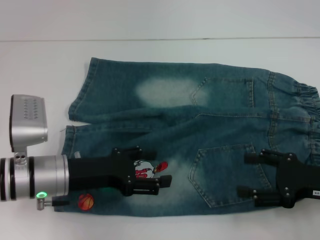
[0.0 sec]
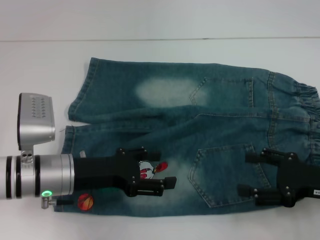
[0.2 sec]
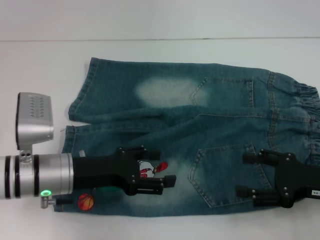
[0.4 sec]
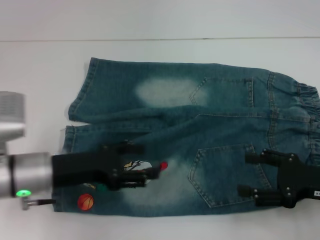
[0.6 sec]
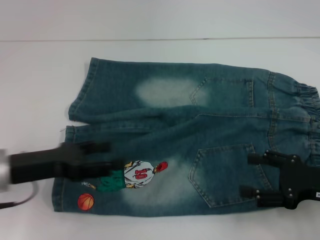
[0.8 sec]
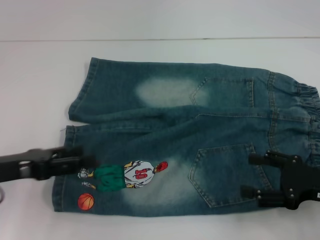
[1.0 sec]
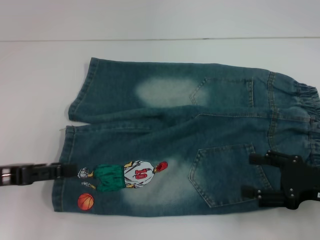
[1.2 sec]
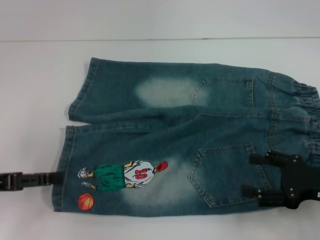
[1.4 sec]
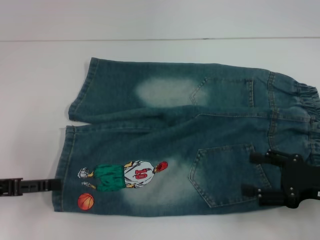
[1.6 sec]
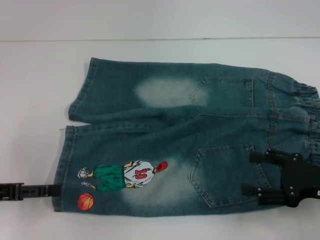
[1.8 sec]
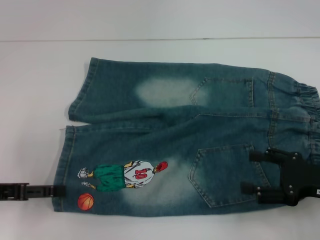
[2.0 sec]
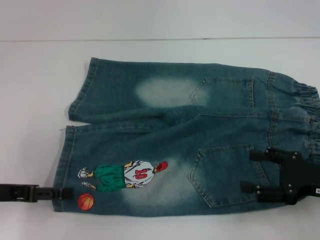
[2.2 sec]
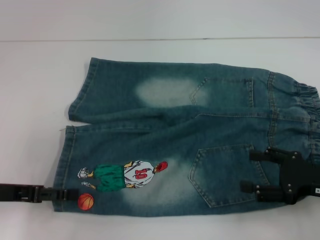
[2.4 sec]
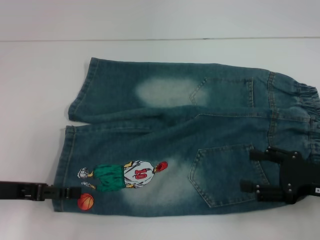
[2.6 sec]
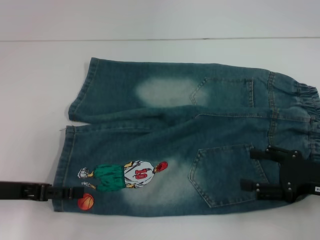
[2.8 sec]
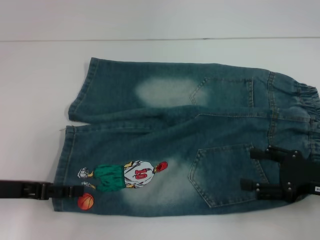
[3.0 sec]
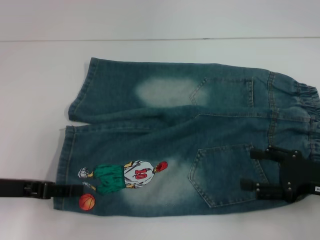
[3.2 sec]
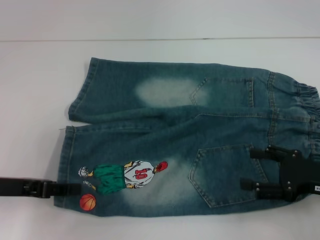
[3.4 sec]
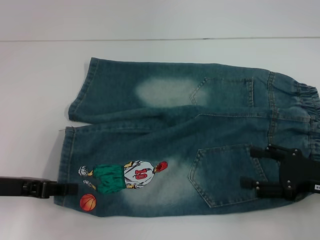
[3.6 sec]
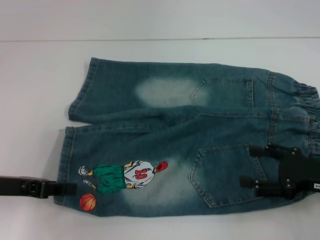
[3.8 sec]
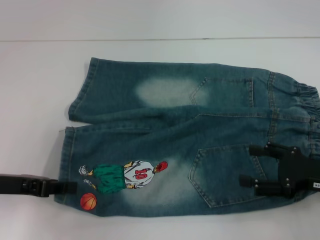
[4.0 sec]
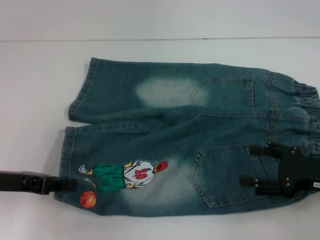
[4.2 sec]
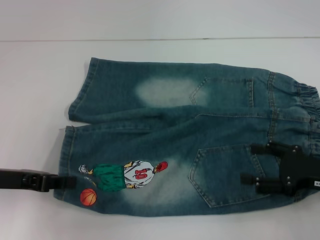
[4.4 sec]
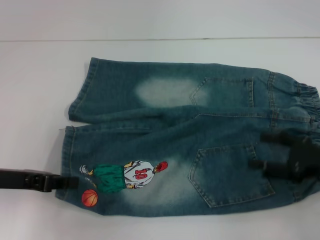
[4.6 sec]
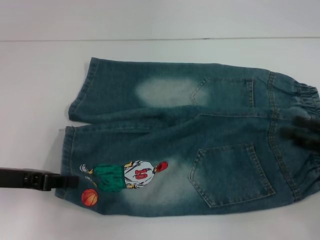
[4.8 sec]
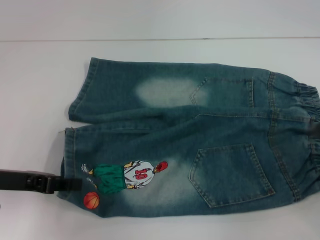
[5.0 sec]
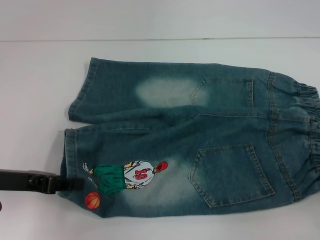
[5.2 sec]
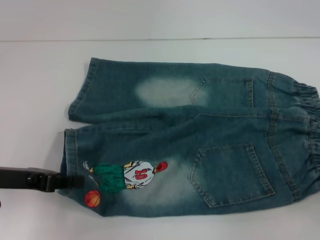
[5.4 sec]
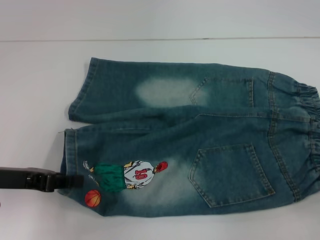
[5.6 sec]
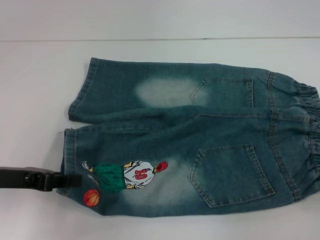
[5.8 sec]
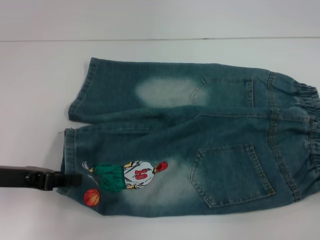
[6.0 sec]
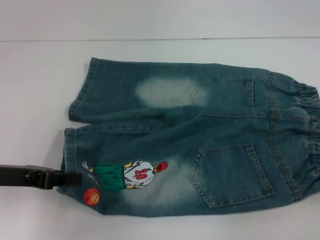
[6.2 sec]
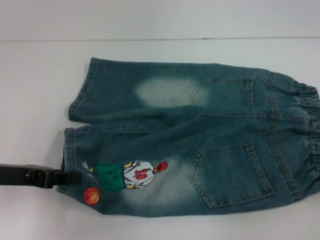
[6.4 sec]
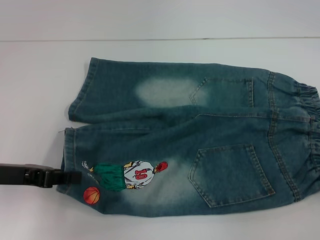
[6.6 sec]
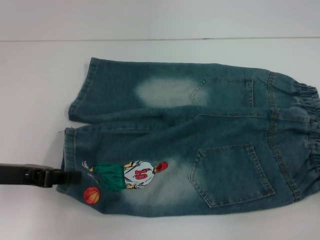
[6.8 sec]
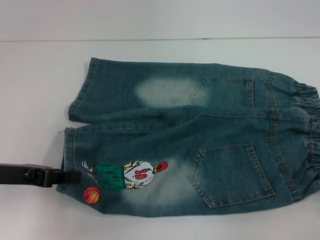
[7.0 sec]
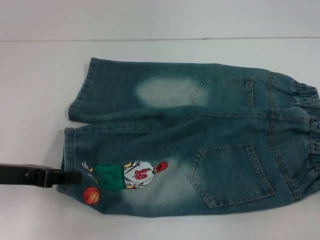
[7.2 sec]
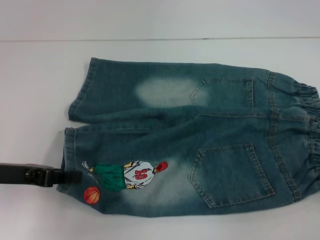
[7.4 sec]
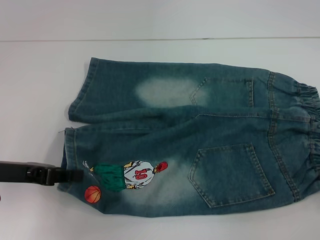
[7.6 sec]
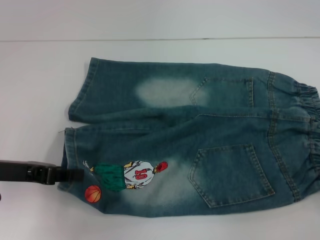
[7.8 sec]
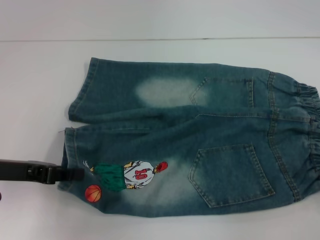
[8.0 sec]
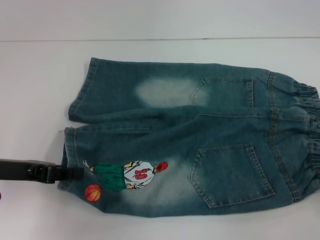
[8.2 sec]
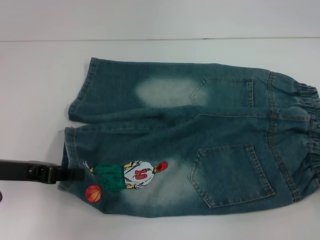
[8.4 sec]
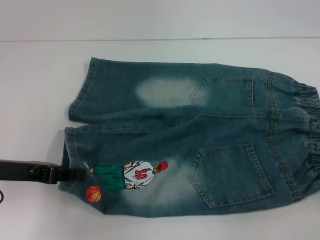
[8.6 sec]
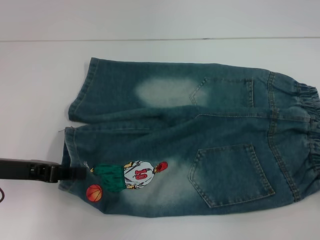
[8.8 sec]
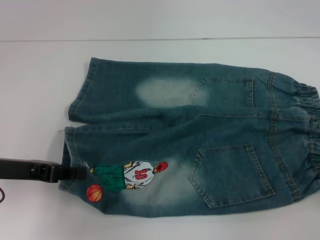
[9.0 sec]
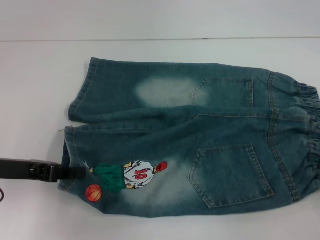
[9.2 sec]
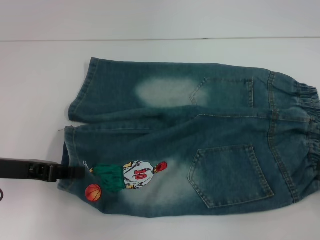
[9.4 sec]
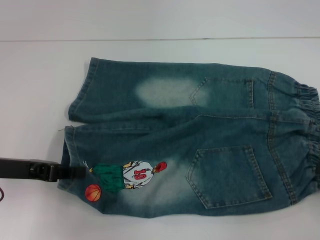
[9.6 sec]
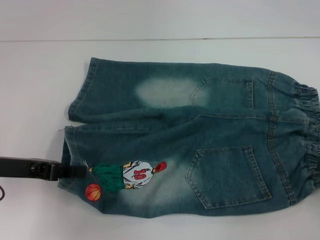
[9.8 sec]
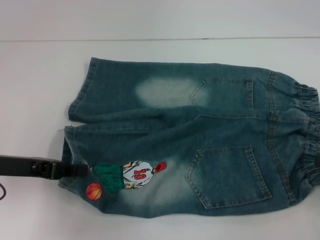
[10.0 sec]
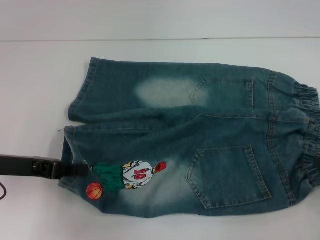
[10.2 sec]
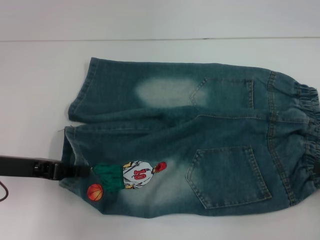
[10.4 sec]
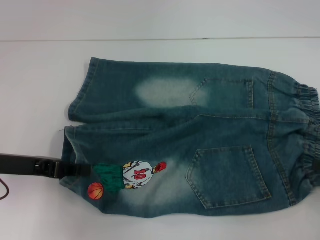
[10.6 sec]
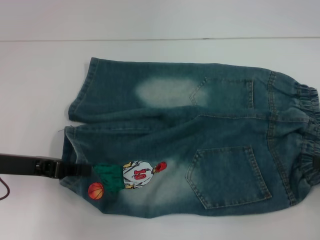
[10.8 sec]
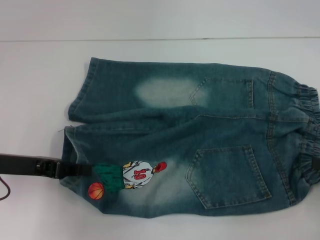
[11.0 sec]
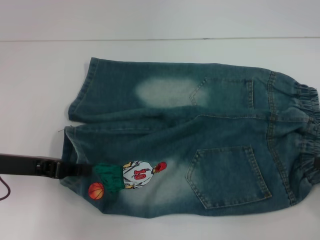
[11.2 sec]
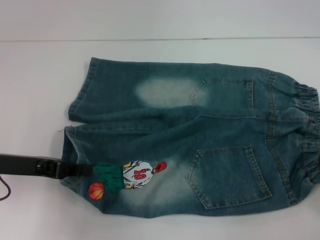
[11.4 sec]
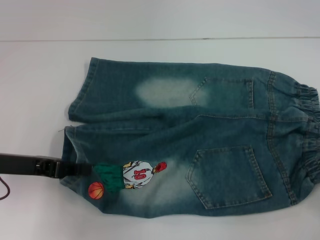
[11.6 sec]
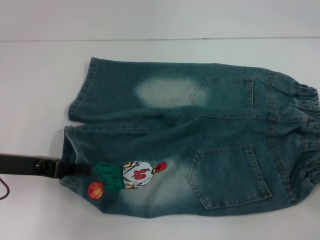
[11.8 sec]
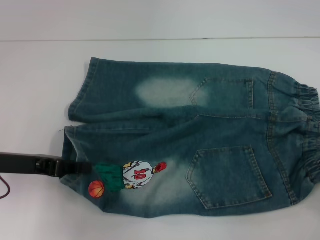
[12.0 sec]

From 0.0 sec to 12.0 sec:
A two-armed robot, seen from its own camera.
Step, from 0.0 sec to 11.6 sec: Hold the lower right waistband with your right hand.
From 0.0 sec to 1.6 sec: The left gripper travels to the left by roughly 15 cm.
From 1.6 sec to 3.0 sec: The grippers make only small movements.
From 3.0 sec to 4.4 sec: The left gripper closes its fingers.
From 4.4 sec to 6.0 sec: The right gripper goes about 15 cm to the right and backward.
From 6.0 sec to 7.6 sec: There are only small adjustments of the grippers.
From 7.6 sec to 9.0 sec: Both grippers stay about where they are.
From 9.0 sec to 10.4 sec: The grippers stay close to where they were, moving slightly.

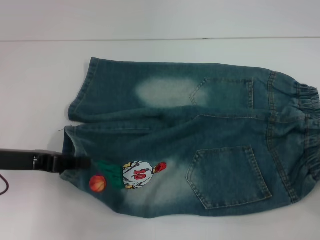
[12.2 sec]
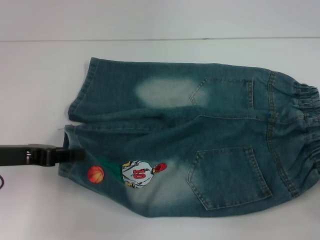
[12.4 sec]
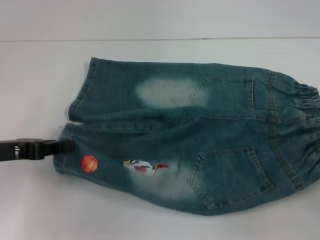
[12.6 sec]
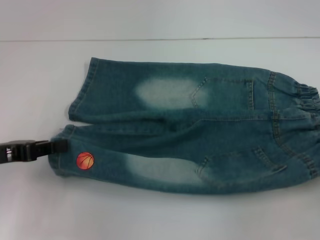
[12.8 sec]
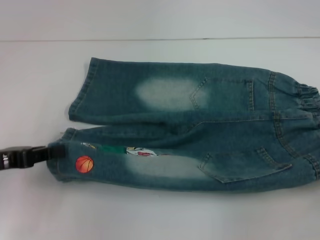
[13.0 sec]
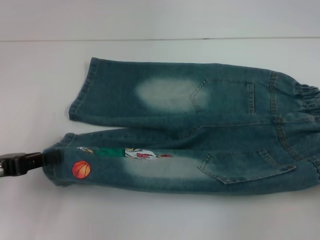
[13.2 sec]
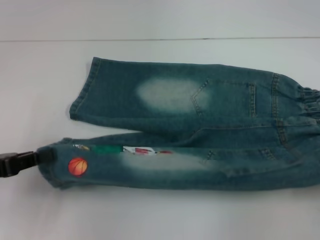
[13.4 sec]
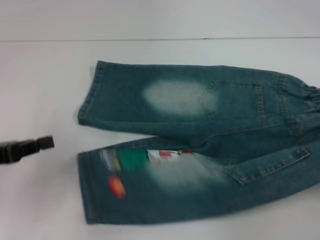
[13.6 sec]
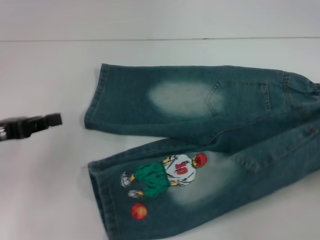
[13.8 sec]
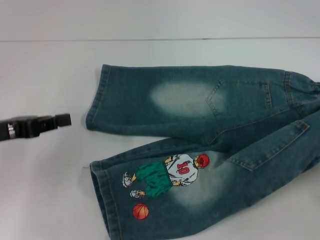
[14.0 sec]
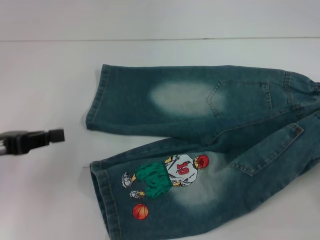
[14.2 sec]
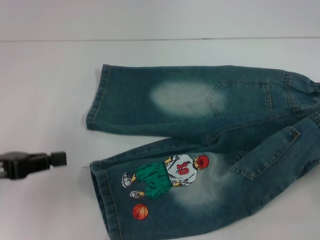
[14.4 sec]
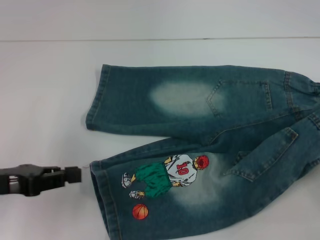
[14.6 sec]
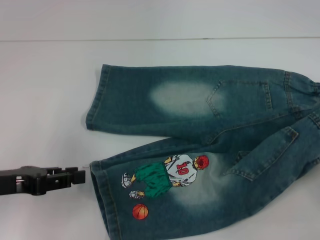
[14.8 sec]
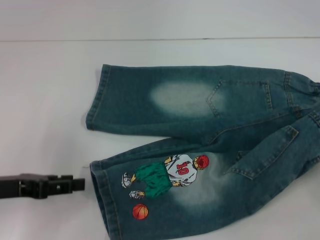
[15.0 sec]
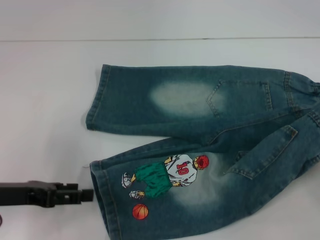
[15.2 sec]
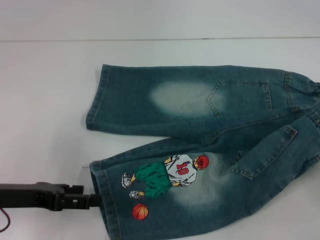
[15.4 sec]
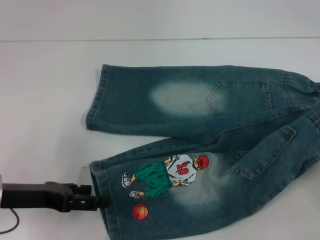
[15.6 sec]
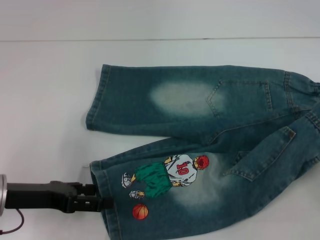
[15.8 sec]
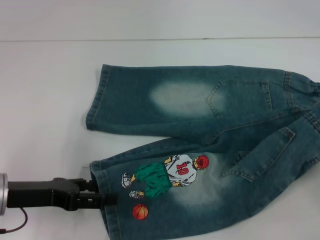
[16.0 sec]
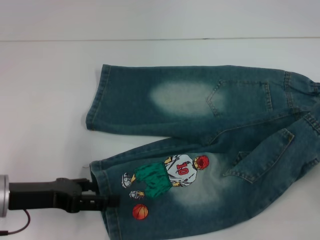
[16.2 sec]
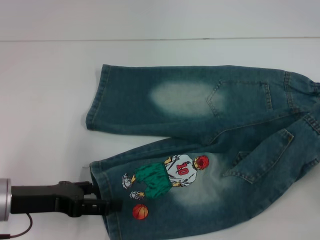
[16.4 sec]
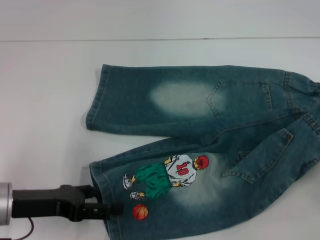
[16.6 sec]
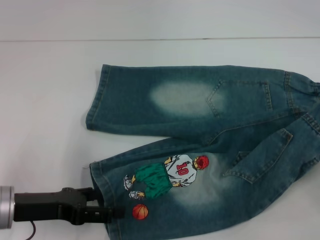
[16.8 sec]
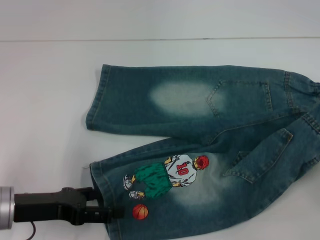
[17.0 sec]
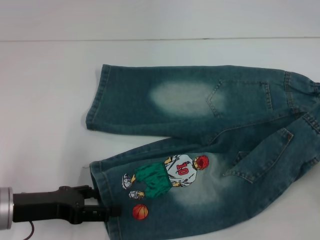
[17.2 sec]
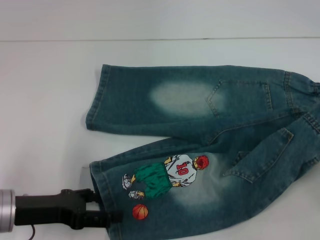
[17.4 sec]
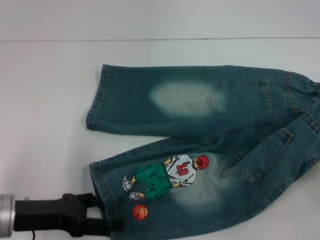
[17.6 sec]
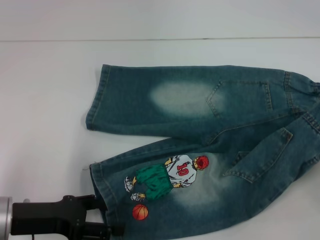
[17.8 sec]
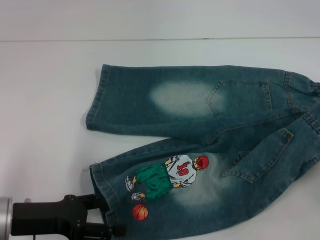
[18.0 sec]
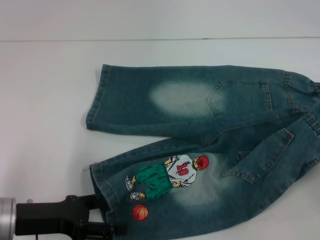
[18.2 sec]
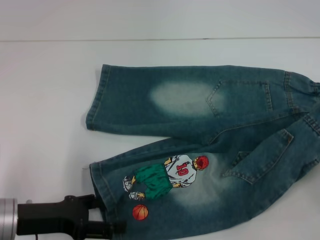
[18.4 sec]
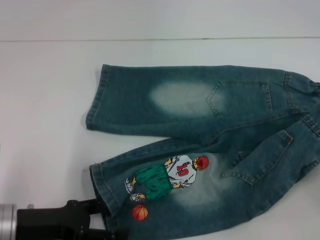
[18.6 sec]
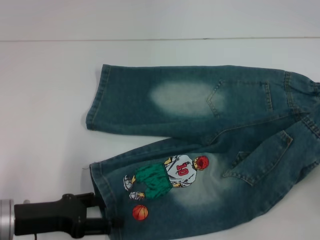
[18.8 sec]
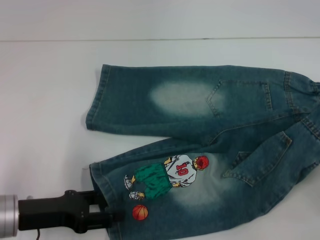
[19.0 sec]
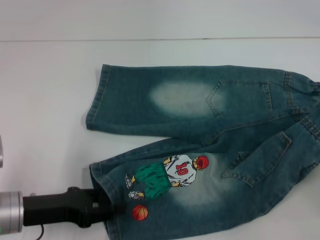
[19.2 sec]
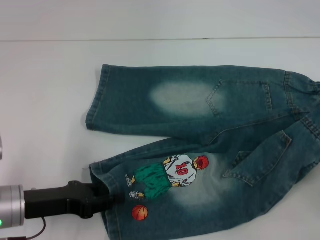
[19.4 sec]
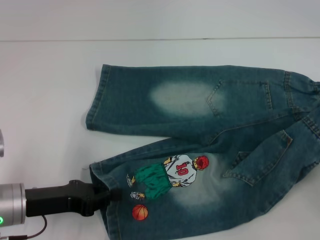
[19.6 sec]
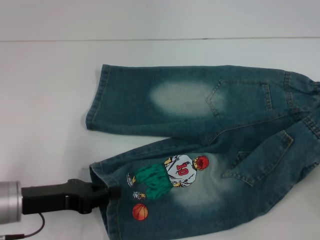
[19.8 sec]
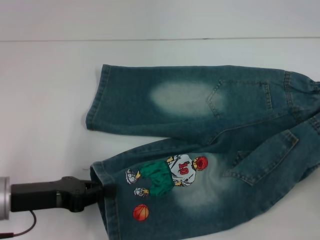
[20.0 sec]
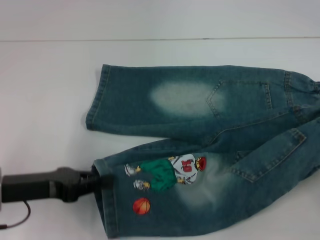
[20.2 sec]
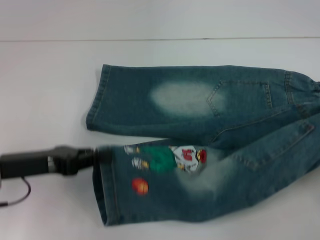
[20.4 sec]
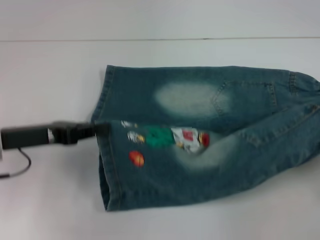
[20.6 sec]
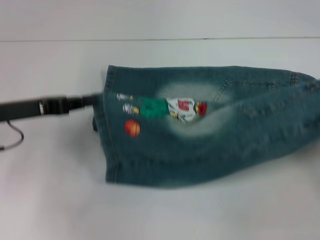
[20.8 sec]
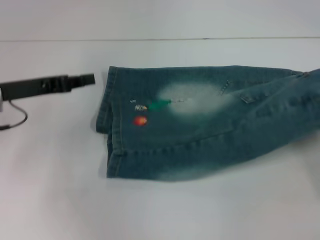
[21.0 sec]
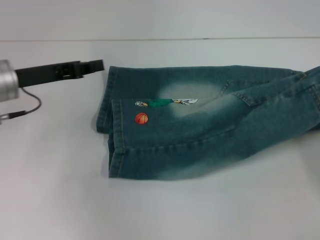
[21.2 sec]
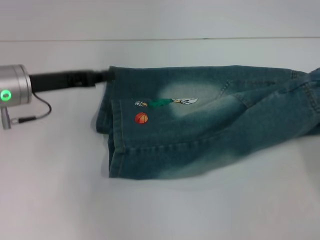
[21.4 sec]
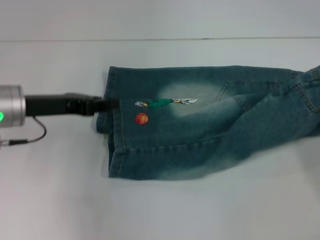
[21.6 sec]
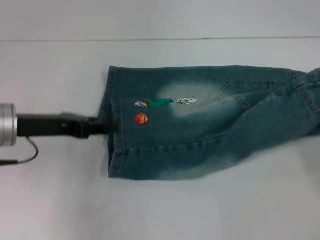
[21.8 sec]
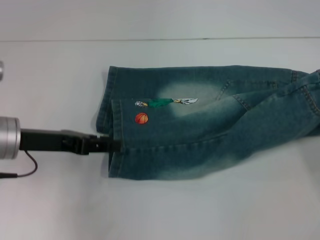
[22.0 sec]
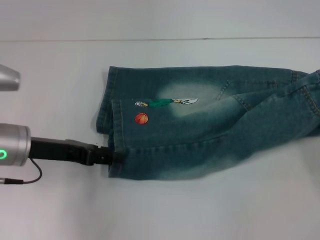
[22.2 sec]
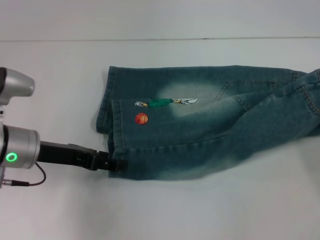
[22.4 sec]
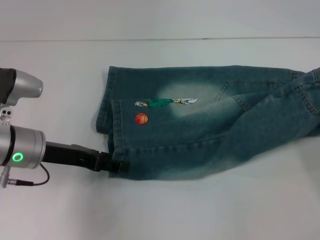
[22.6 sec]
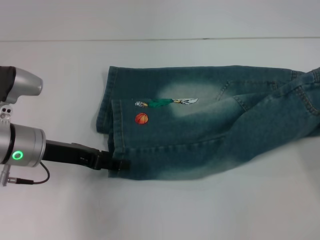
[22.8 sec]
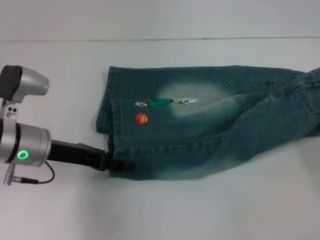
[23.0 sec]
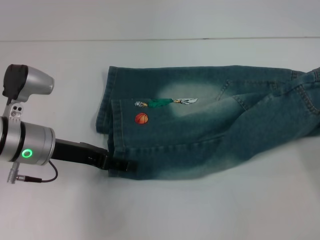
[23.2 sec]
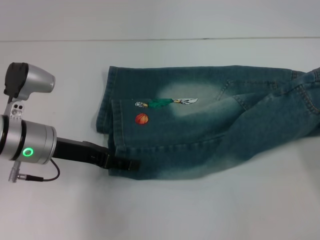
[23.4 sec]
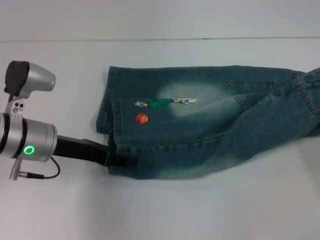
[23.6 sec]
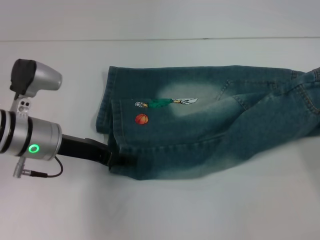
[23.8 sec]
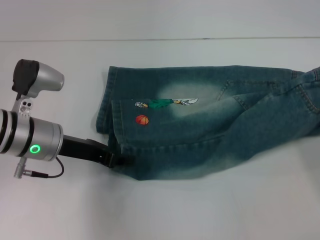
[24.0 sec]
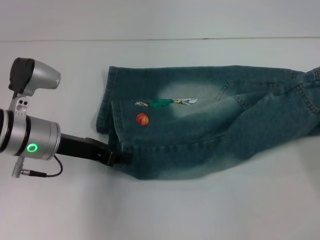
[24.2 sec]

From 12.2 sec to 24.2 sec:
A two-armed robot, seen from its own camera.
Step, from 12.2 sec to 24.0 sec: Grab the lower left pant leg with your left hand.
From 12.2 sec to 13.8 sec: The right gripper ends up about 5 cm from where it was.
From 13.8 sec to 15.2 sec: The left gripper ends up approximately 5 cm from where it was, and opens.
From 15.2 sec to 16.6 sec: The grippers make only small movements.
From 16.6 sec to 18.2 sec: The grippers move only a little.
From 18.2 sec to 19.8 sec: The left gripper closes.
From 19.8 sec to 21.2 sec: The left gripper shifts approximately 15 cm forward and upward; the right gripper moves approximately 5 cm.
From 21.2 sec to 22.6 sec: The left gripper heads backward, covering approximately 5 cm, and opens its fingers.
From 22.6 sec to 24.2 sec: The left gripper closes up.
